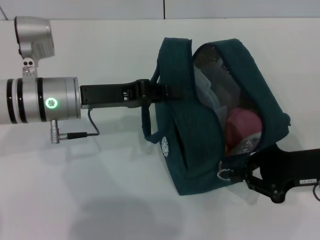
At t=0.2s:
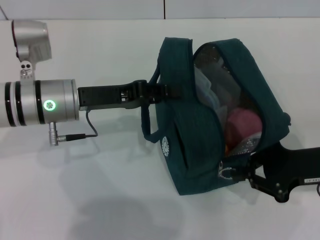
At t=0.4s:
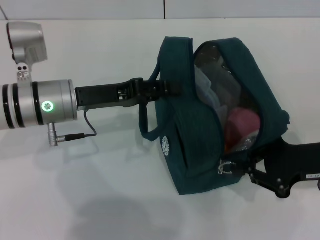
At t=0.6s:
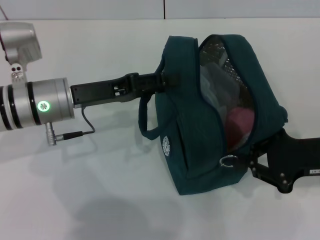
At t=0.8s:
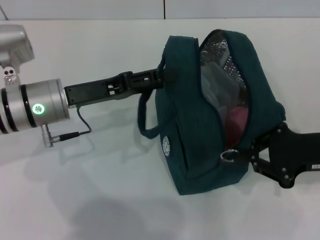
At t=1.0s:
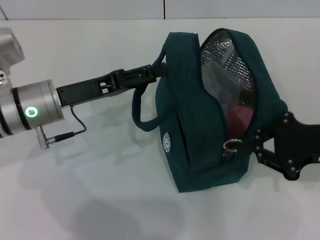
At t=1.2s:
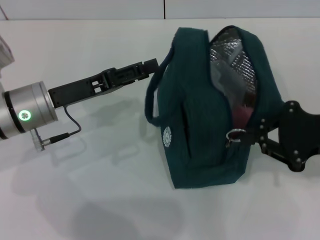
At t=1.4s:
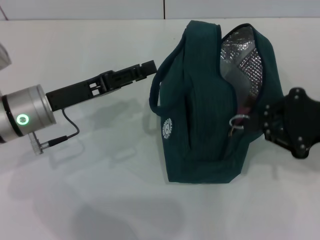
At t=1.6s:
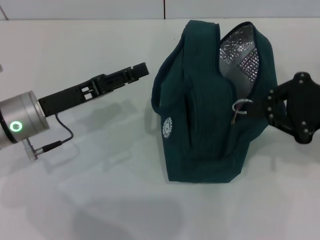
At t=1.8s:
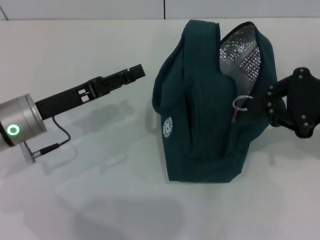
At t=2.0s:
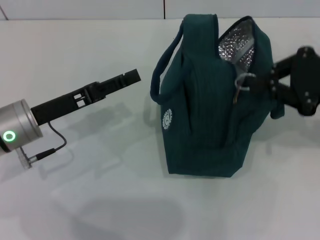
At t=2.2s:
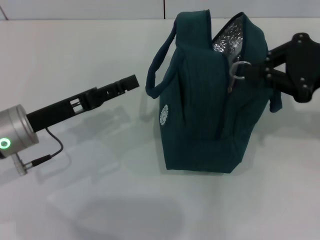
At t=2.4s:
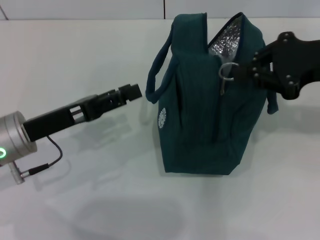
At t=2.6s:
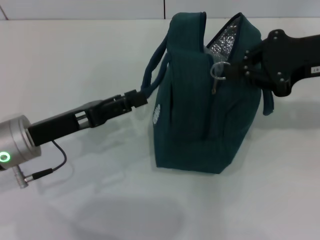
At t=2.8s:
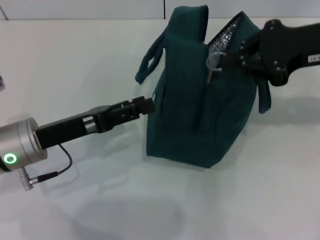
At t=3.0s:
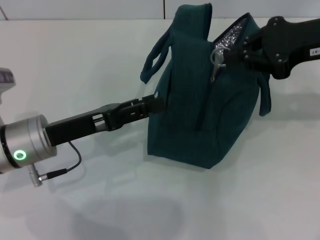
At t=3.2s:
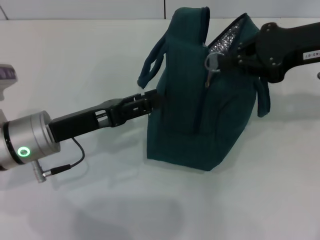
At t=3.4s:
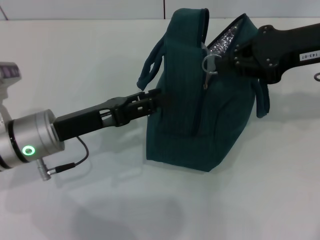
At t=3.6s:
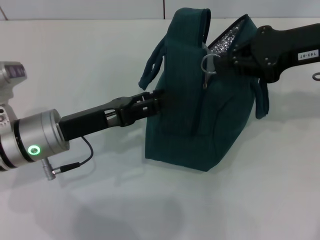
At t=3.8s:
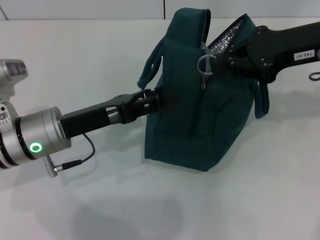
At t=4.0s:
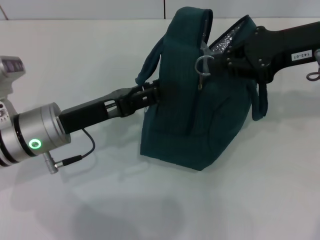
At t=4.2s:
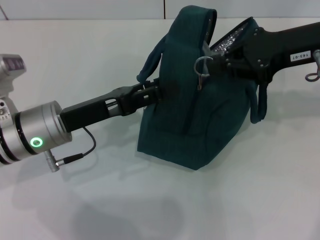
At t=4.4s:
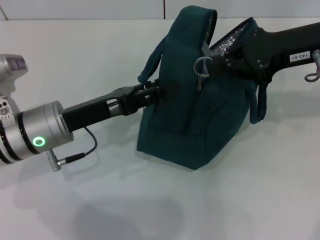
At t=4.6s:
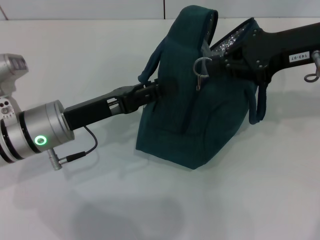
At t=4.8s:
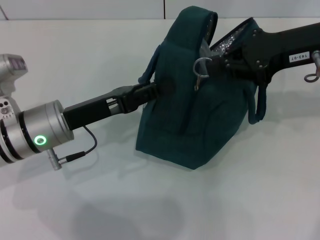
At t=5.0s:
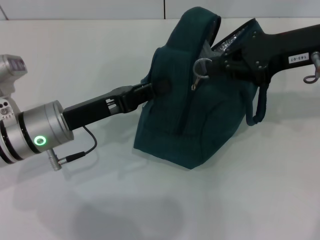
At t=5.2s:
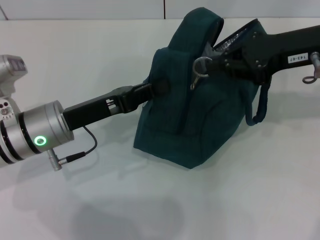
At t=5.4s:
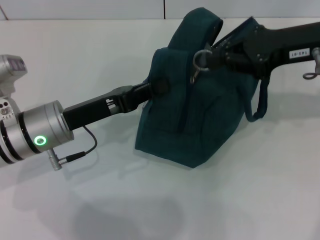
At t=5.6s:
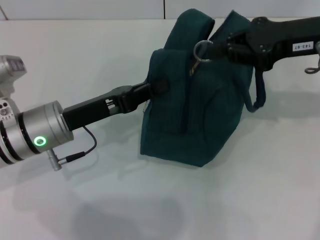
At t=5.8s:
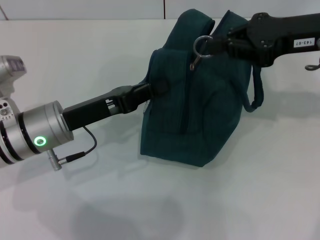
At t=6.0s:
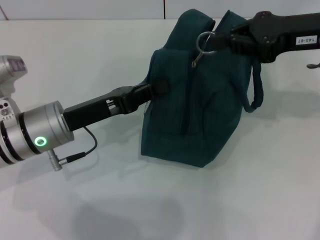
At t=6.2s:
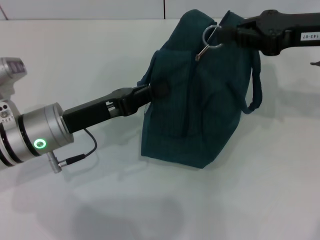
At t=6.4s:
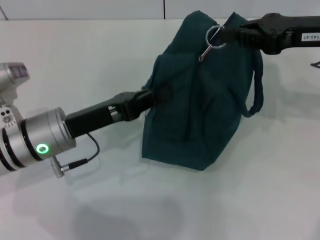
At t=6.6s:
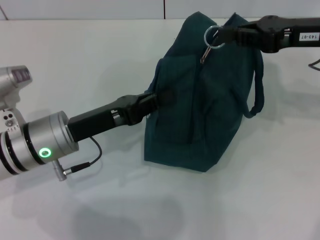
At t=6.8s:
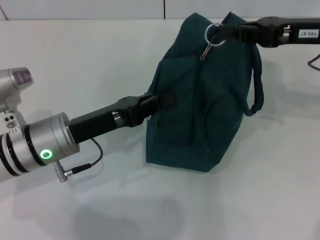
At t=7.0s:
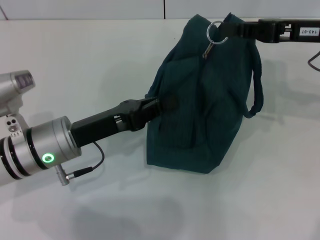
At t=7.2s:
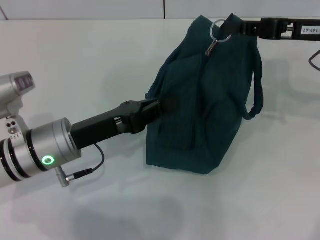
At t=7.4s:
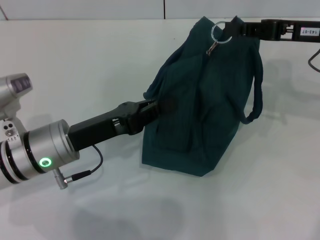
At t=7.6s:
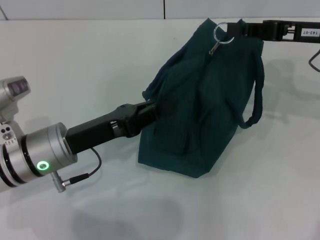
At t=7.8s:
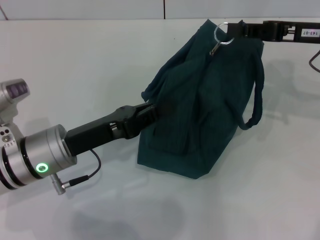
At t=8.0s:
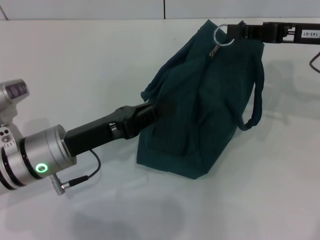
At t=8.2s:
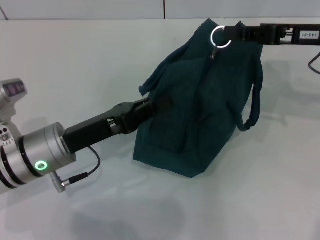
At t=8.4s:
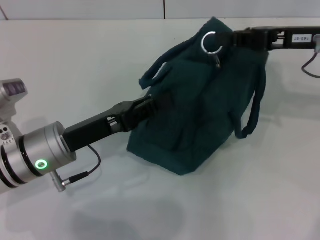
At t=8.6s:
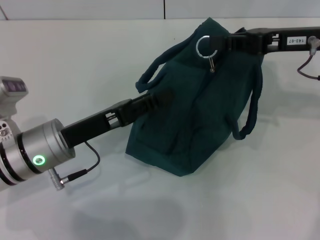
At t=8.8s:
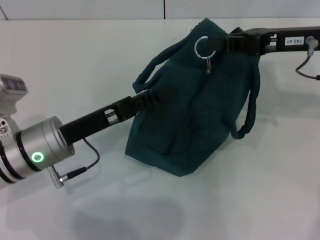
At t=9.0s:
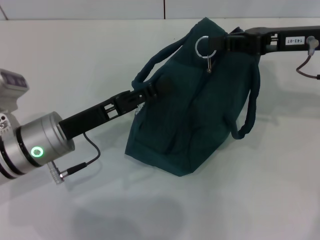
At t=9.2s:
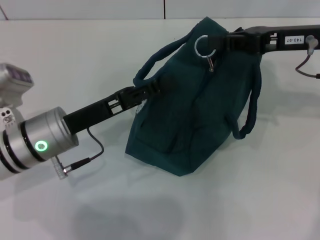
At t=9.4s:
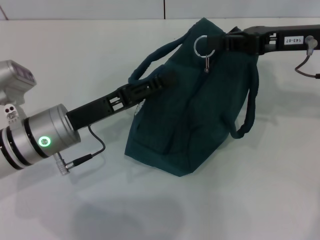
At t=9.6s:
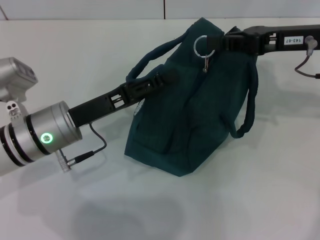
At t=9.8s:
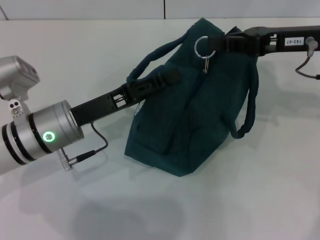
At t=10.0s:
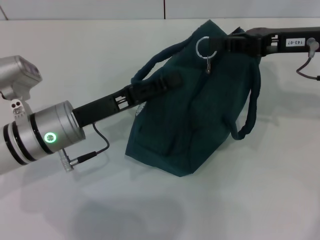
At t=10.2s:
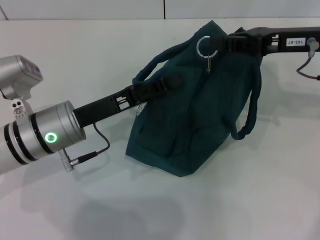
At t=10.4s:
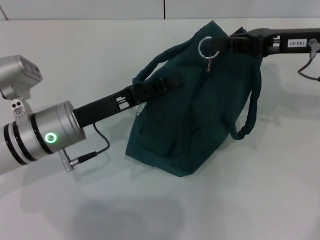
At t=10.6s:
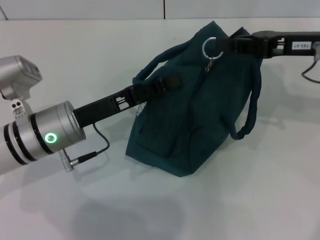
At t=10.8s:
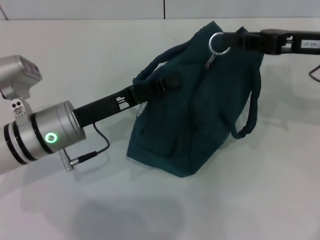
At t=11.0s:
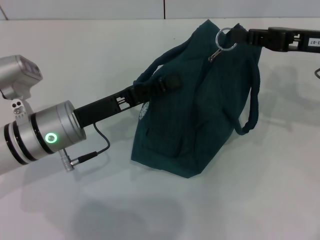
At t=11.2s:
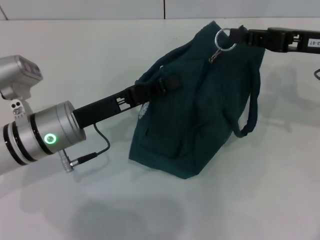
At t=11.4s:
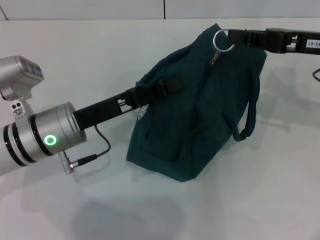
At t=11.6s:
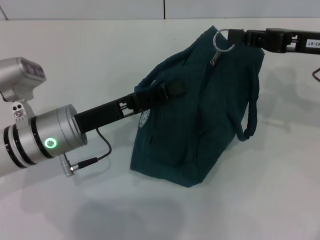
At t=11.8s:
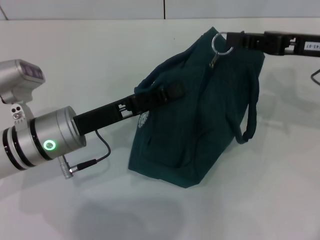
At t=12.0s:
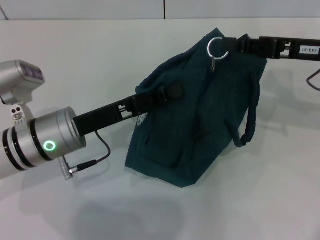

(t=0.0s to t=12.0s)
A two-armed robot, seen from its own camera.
t=0.0s - t=1.6s: The right gripper goes approximately 10 cm upward, while the left gripper changes place by some 5 cm, and opens.
t=1.6s - t=3.0s: The right gripper is displaced upward and forward by approximately 10 cm.
t=3.0s - t=4.4s: The grippers make only small movements.
t=4.4s - t=6.0s: The left gripper closes.
t=7.6s - t=9.0s: The left gripper opens its fingers.
t=9.0s - t=12.0s: The grippers make only small movements.

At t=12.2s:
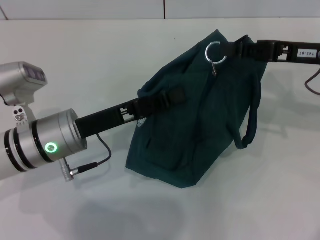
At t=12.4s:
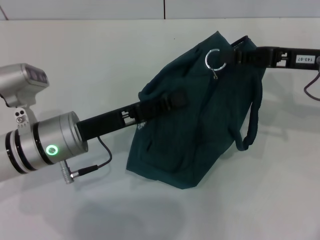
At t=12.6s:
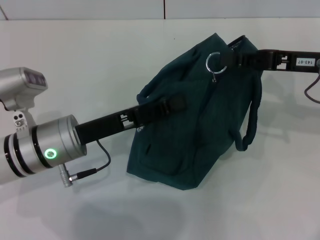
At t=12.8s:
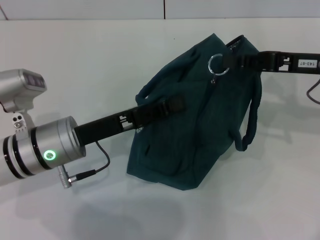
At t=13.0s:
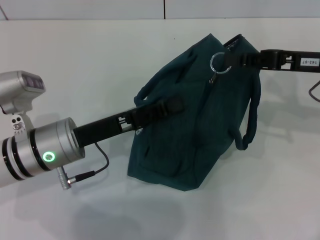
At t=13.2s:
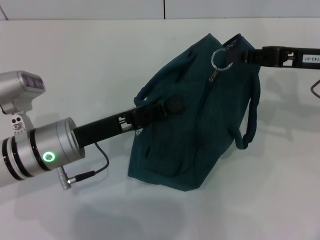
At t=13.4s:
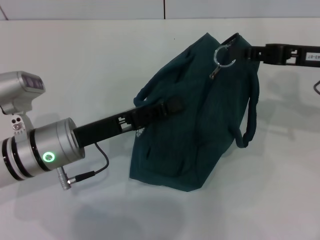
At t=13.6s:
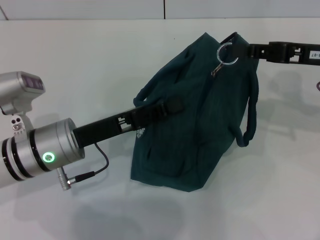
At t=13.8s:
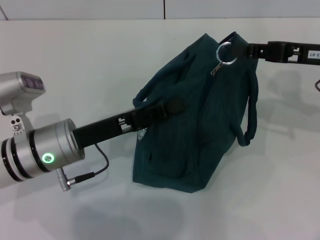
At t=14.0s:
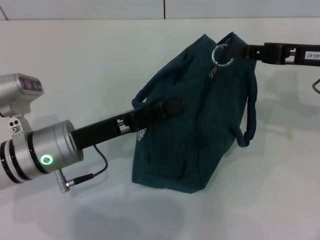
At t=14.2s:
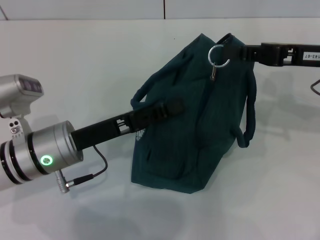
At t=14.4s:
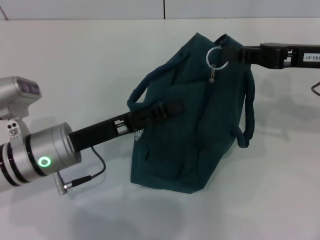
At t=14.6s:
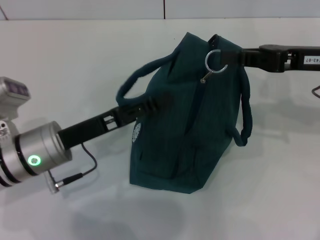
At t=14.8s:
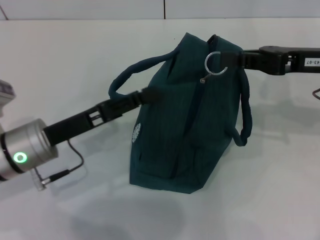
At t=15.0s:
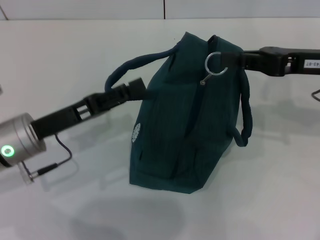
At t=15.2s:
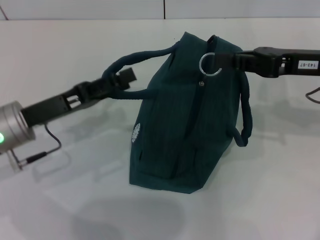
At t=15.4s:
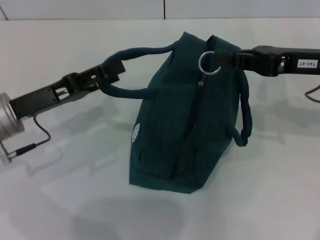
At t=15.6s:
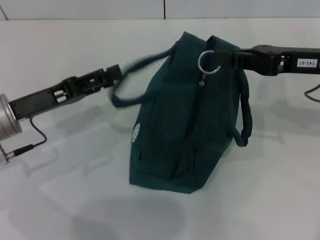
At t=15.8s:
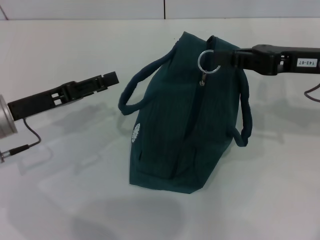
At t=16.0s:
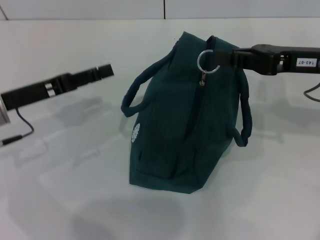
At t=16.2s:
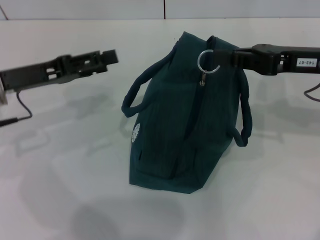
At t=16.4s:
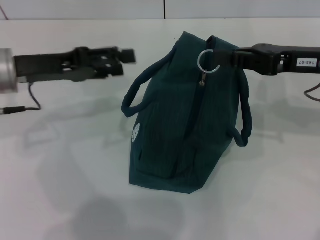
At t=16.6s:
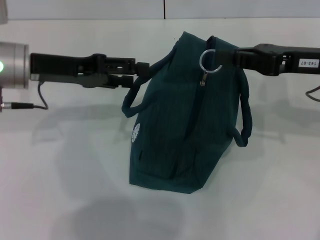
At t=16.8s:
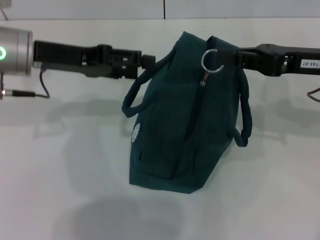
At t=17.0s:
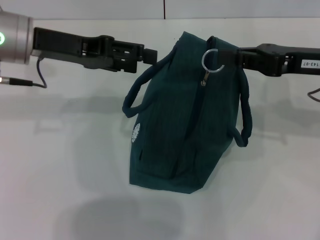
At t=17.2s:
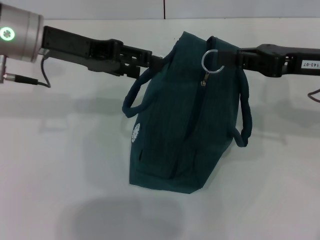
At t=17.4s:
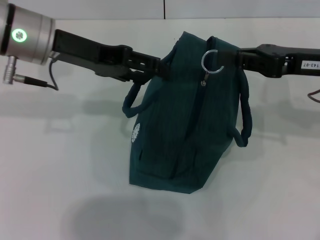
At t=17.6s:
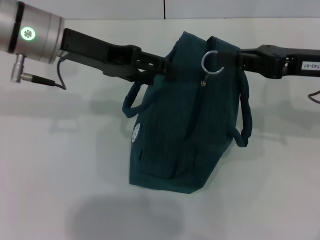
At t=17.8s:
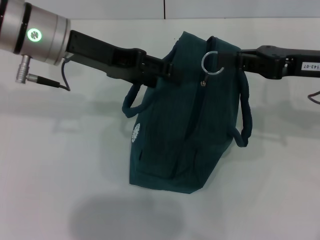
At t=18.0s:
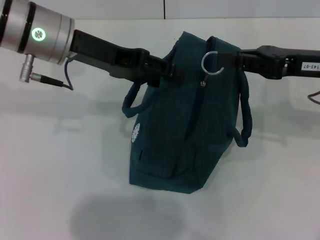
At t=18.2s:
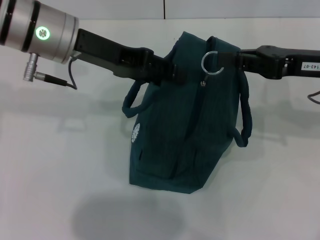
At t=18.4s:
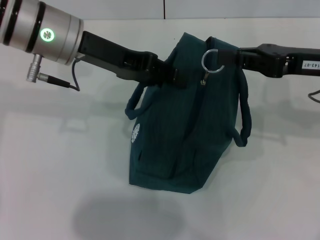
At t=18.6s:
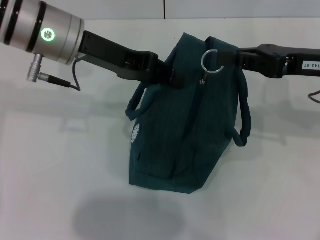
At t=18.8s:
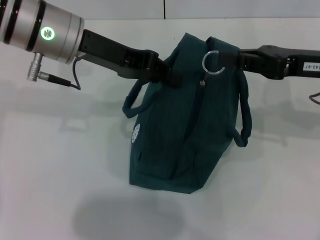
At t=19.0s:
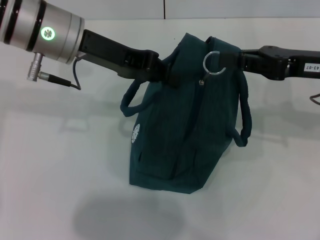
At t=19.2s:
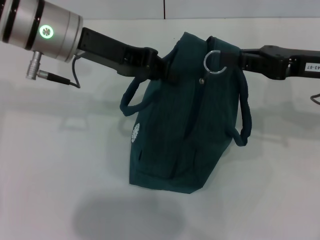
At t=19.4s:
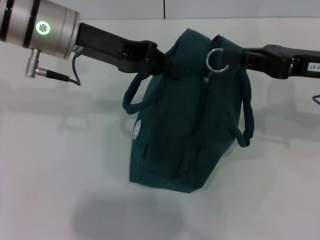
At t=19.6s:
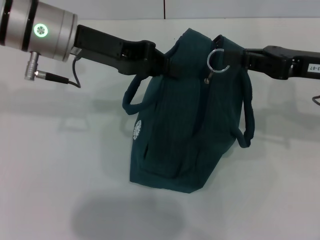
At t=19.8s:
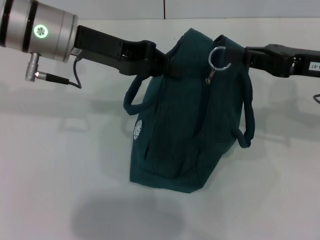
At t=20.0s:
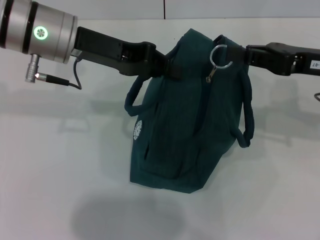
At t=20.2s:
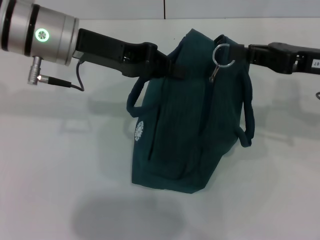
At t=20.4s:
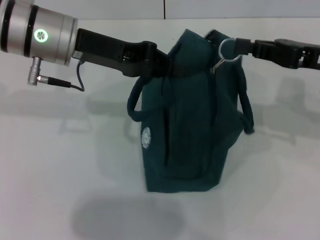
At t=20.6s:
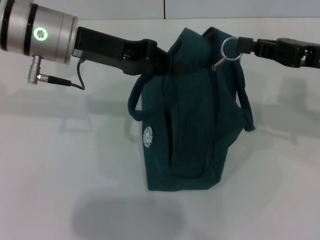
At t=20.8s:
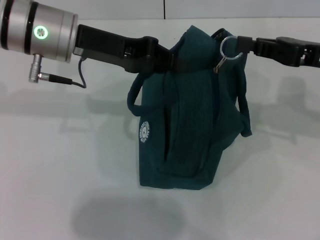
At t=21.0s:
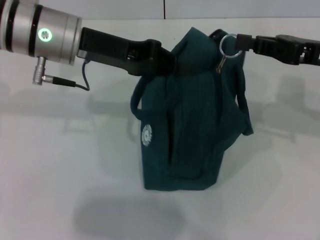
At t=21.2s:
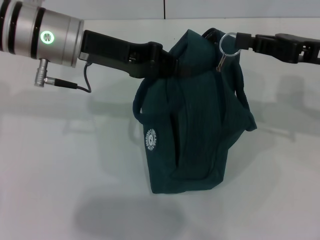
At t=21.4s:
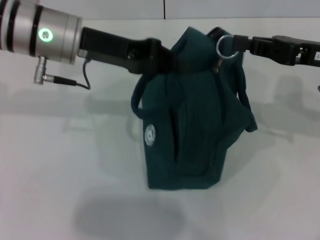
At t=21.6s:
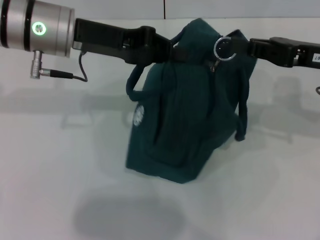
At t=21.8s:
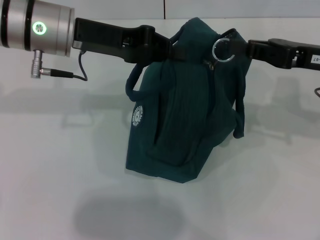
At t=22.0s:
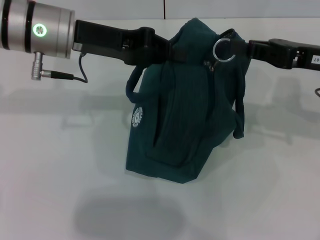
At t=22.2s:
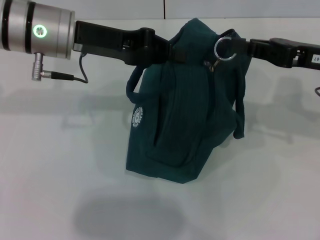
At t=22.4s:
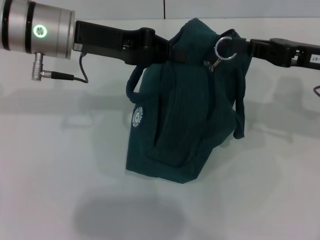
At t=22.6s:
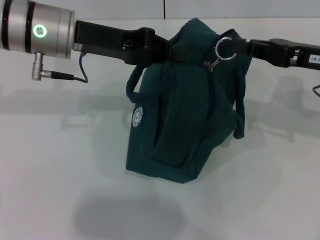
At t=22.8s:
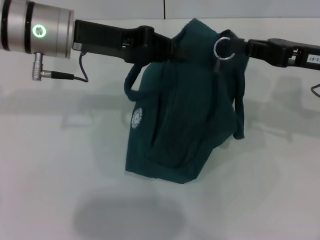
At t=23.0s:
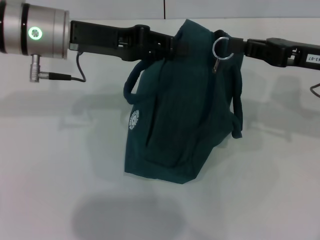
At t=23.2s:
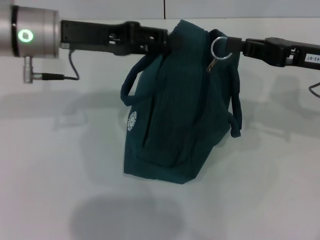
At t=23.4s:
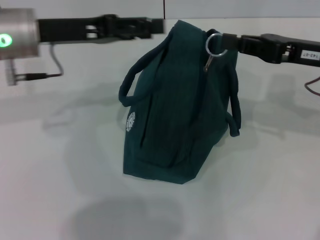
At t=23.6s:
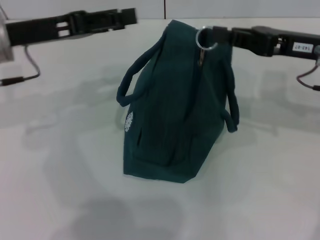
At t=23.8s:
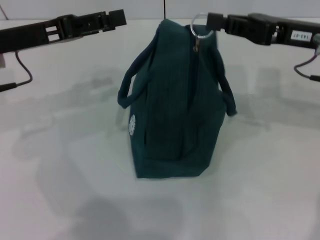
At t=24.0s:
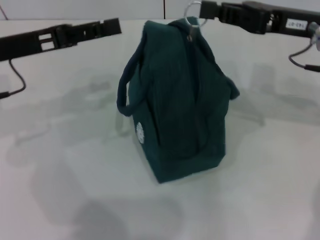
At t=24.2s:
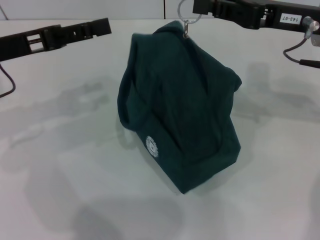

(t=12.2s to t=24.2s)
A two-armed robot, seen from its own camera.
t=12.2s - t=13.8s: The grippers make only small movements.
t=13.8s - t=15.2s: The left gripper travels to the left by about 5 cm, and opens its fingers.
t=15.2s - t=16.6s: The left gripper moves upward and forward, some 10 cm.
t=16.6s - t=18.2s: The left gripper is displaced to the right by approximately 5 cm.
t=18.2s - t=19.8s: The left gripper closes up.
t=19.8s - t=22.6s: The grippers make only small movements.
t=22.6s - t=24.2s: The left gripper shifts approximately 10 cm to the left and backward, and opens its fingers, while the right gripper changes place by some 5 cm.
